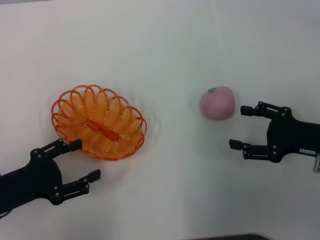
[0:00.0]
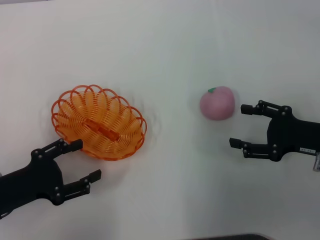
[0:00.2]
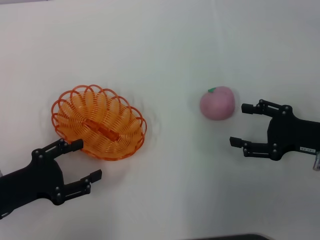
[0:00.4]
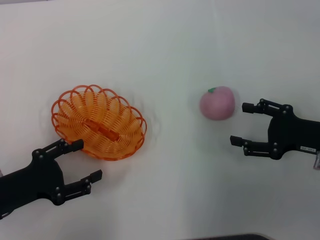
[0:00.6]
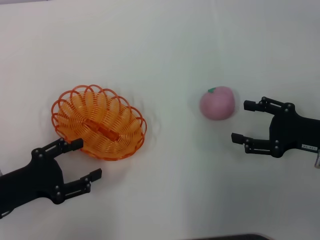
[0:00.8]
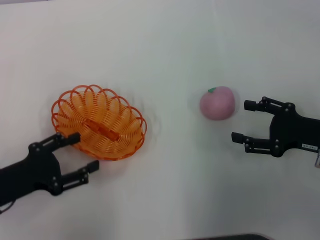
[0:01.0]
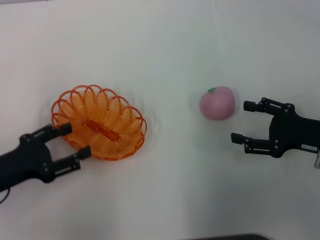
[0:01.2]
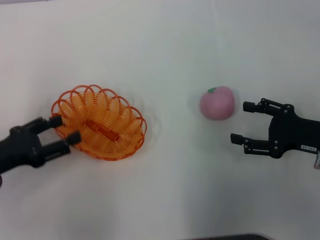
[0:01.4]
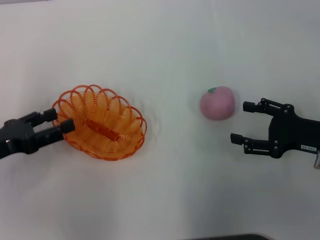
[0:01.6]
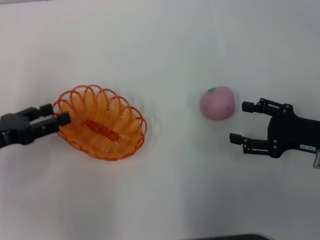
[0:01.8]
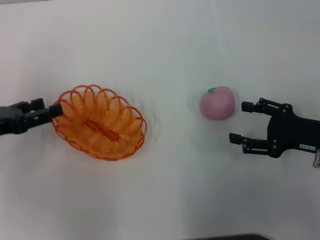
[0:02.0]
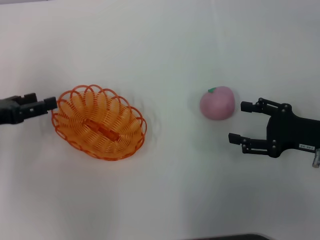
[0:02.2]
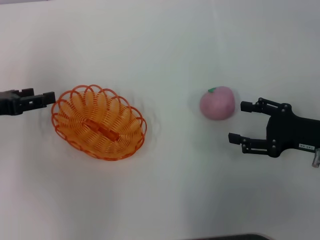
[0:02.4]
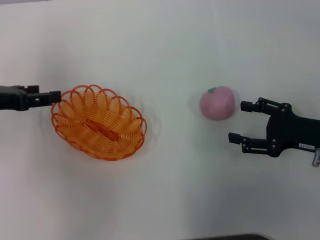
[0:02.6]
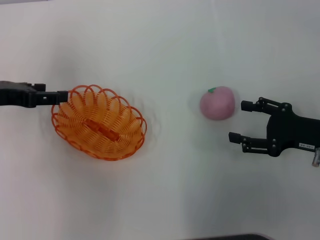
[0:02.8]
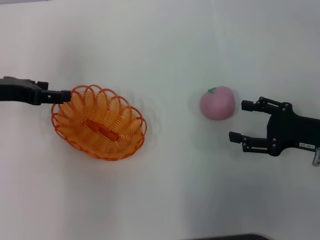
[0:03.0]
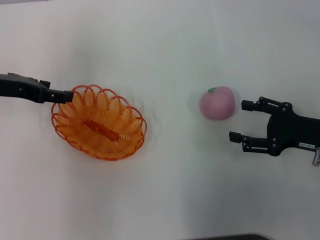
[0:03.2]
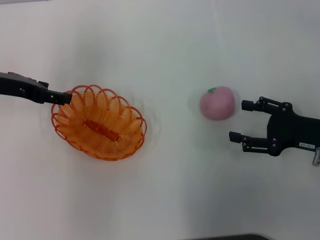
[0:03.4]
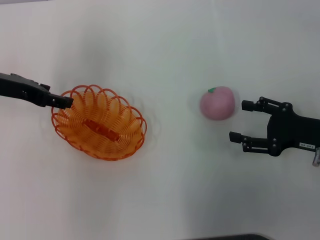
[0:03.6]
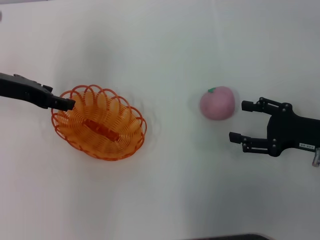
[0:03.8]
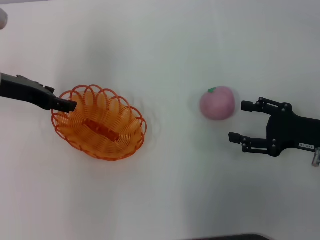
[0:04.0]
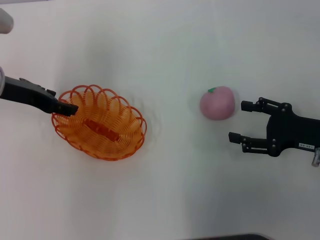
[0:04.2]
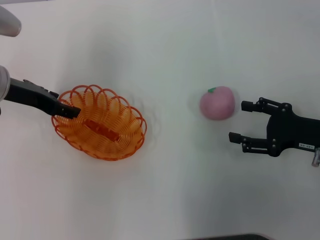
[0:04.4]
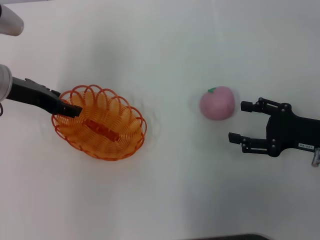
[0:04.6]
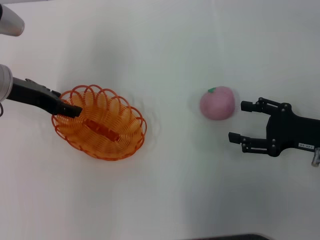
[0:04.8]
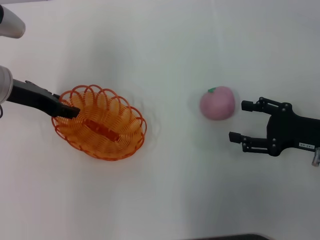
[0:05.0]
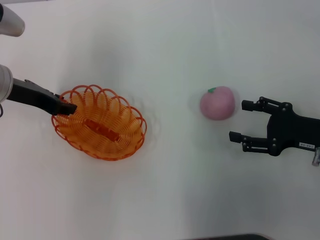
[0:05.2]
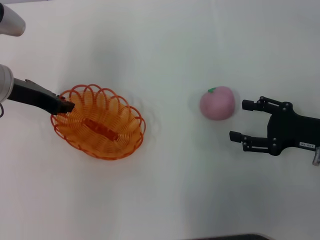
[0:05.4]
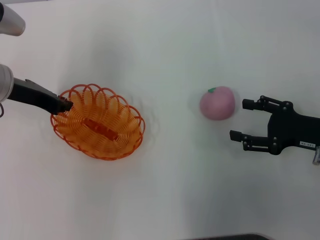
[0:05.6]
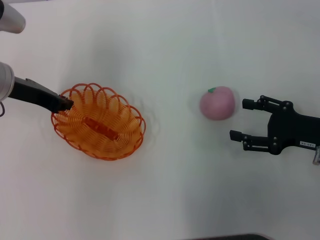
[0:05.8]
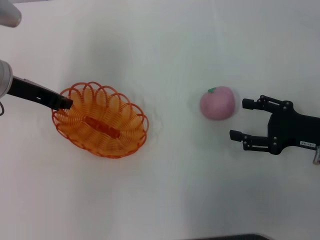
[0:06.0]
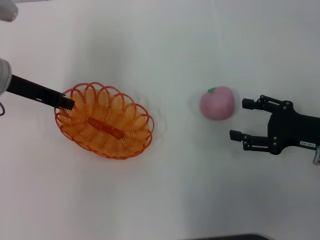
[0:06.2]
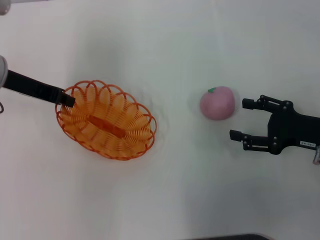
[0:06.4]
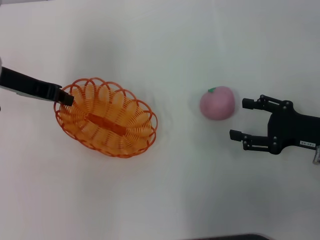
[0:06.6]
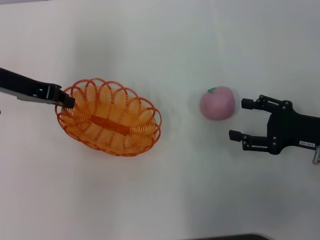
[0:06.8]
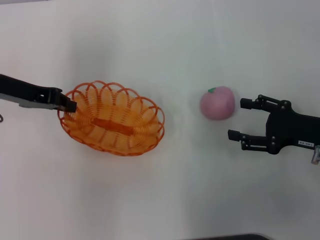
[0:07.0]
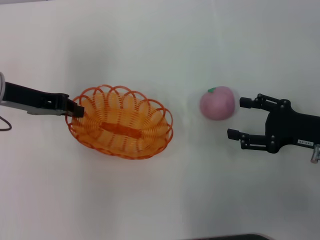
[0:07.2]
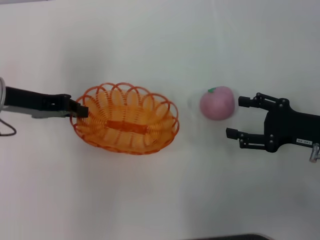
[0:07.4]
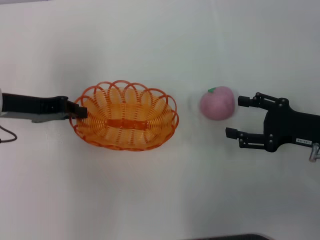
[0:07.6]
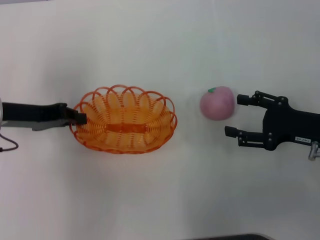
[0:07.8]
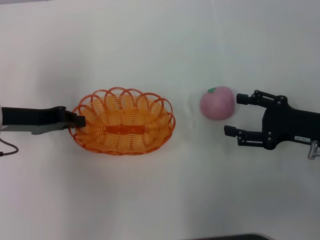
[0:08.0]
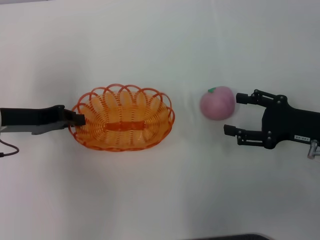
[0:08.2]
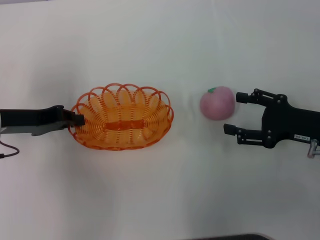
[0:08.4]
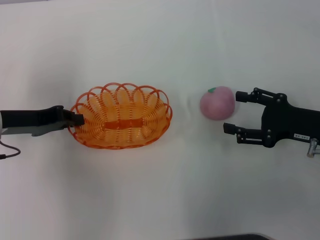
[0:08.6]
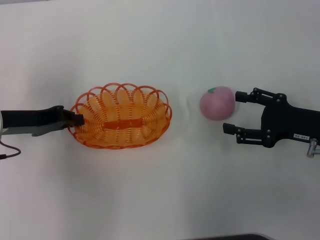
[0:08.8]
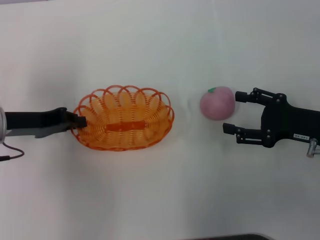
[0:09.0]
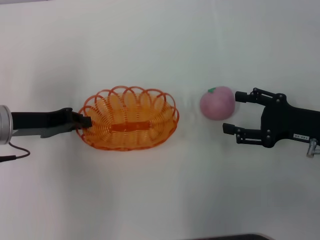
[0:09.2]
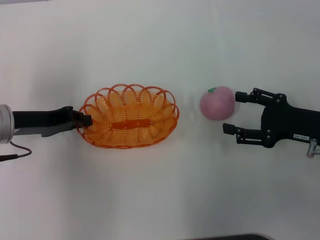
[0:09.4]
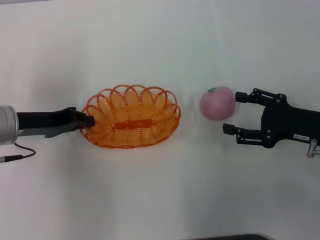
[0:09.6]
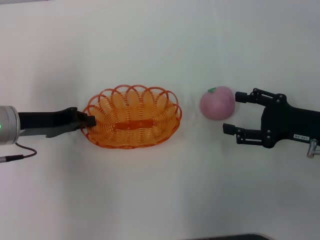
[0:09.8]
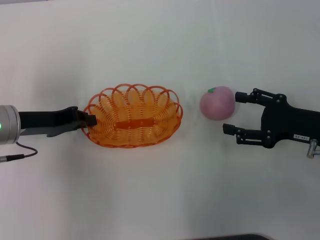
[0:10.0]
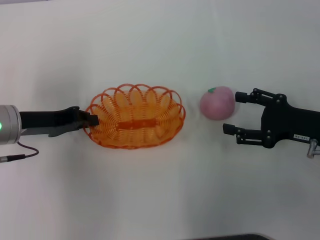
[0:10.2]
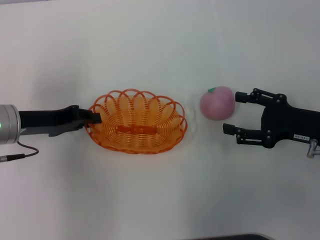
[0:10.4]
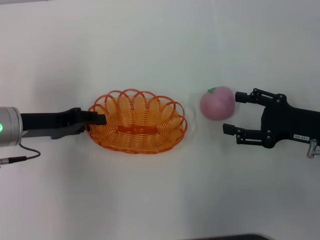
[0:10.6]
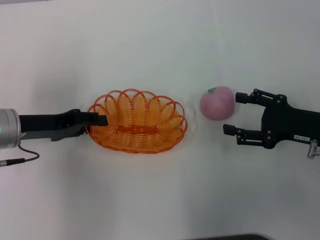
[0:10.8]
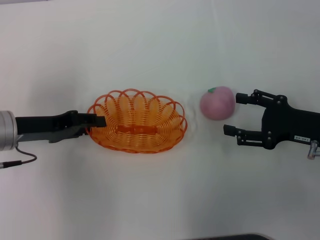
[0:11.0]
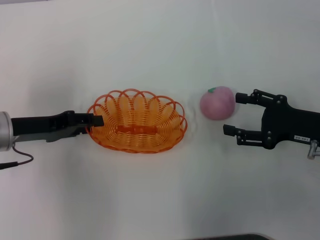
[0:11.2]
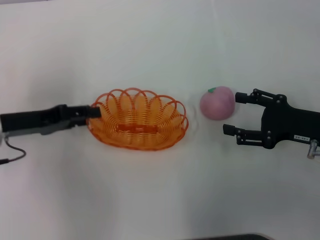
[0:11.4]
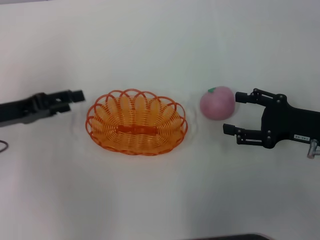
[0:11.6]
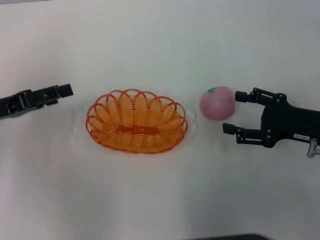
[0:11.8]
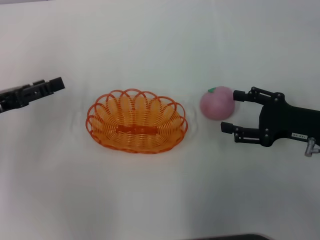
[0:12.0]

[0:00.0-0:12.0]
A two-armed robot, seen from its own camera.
Step, 0:00.0 to 0:07.0: Pick up the basket with the left gripper.
0:00.0 to 0:01.6: The left gripper ends up about 5 cm from where it was.
0:01.6 to 0:03.0: The left gripper is displaced forward and upward by roughly 10 cm.
0:03.0 to 0:04.4: The grippers stay close to where they were, moving slightly.
0:04.4 to 0:06.0: The left gripper closes its fingers.
0:07.6 to 0:10.4: The grippers move only a little.
0:10.4 to 0:12.0: The left gripper is displaced to the left by about 5 cm, and opens.

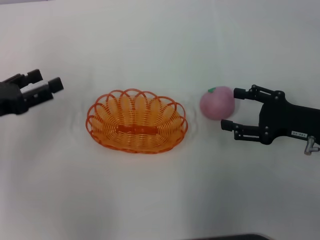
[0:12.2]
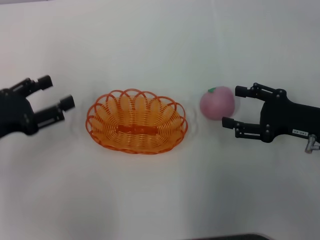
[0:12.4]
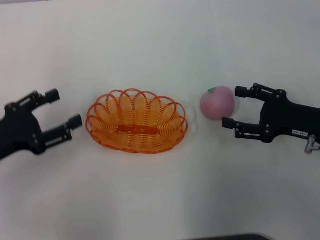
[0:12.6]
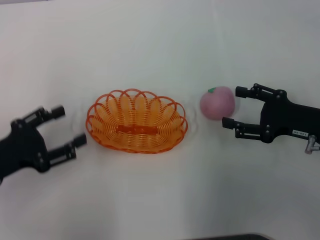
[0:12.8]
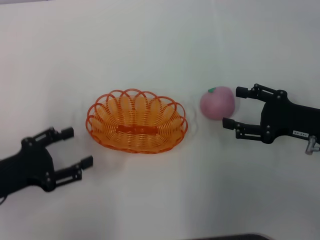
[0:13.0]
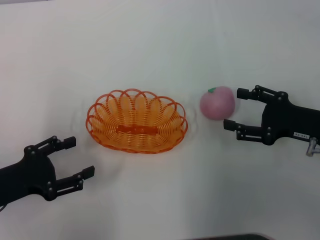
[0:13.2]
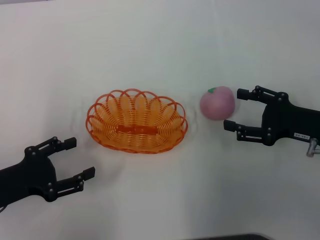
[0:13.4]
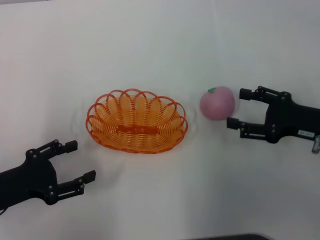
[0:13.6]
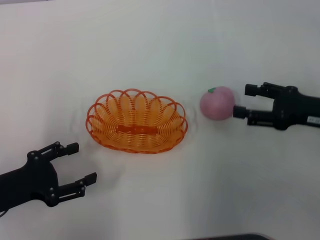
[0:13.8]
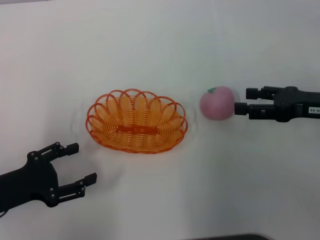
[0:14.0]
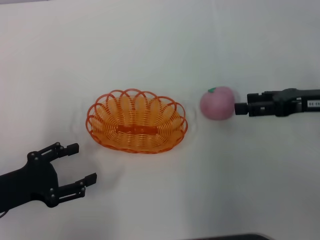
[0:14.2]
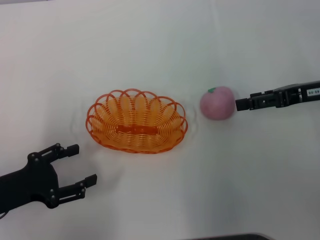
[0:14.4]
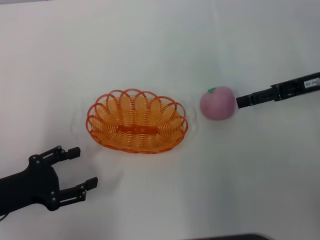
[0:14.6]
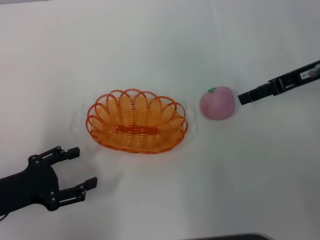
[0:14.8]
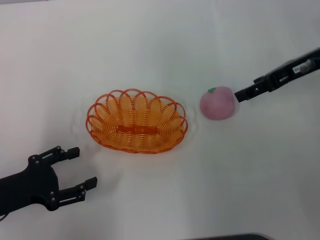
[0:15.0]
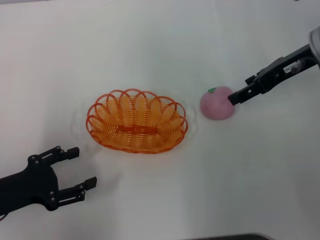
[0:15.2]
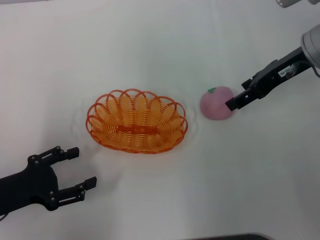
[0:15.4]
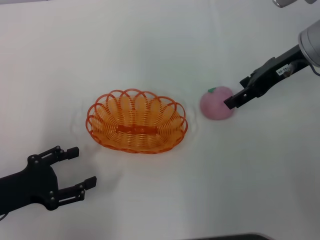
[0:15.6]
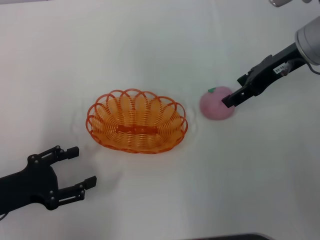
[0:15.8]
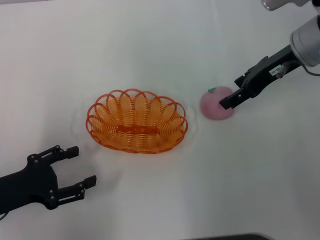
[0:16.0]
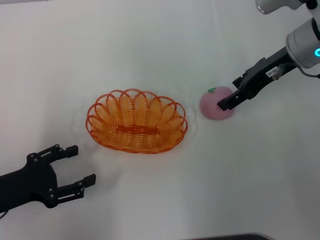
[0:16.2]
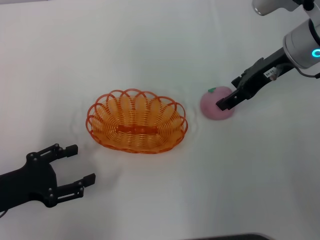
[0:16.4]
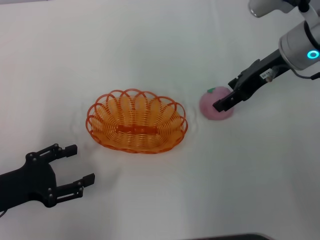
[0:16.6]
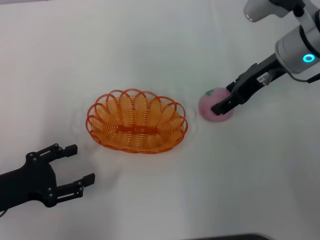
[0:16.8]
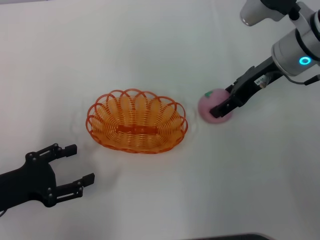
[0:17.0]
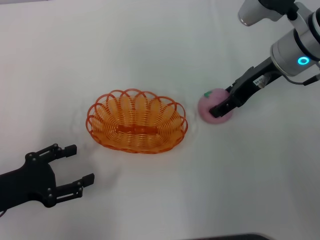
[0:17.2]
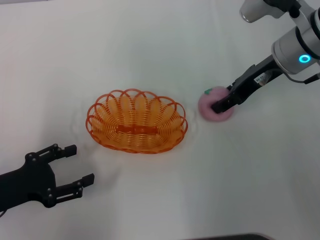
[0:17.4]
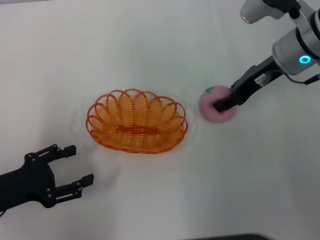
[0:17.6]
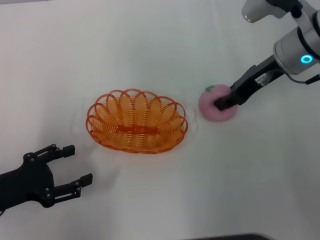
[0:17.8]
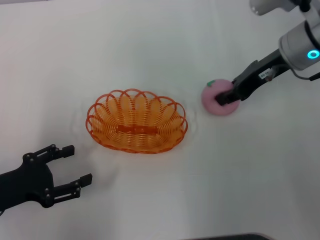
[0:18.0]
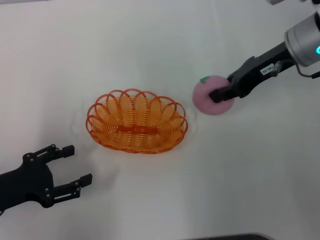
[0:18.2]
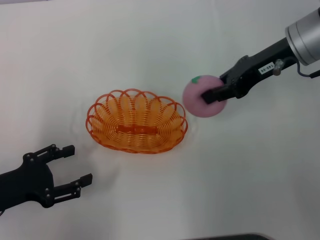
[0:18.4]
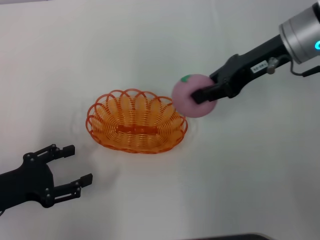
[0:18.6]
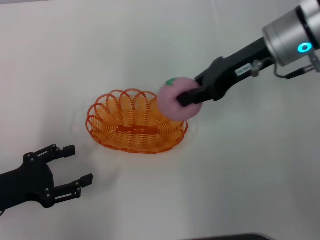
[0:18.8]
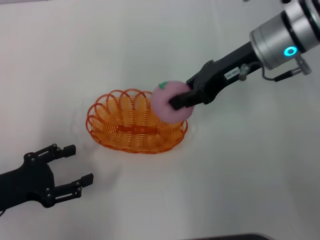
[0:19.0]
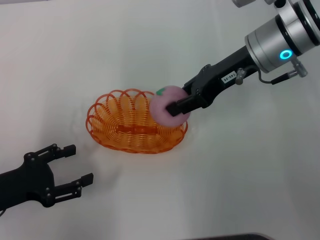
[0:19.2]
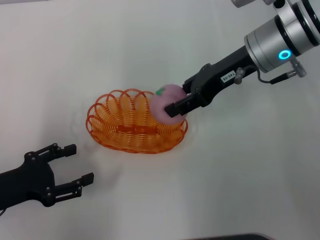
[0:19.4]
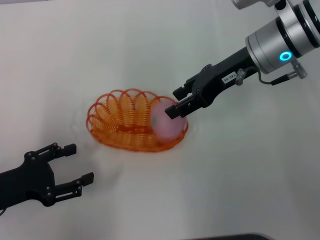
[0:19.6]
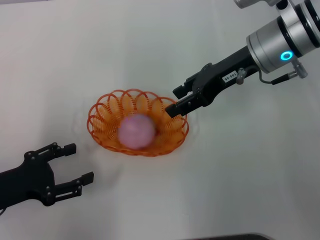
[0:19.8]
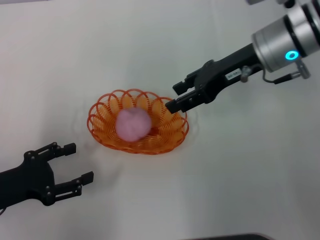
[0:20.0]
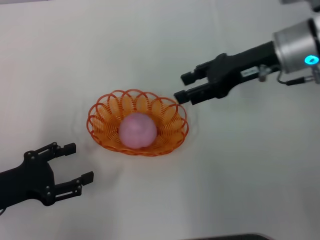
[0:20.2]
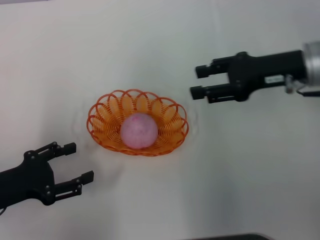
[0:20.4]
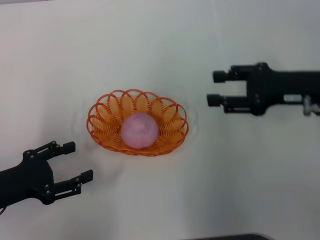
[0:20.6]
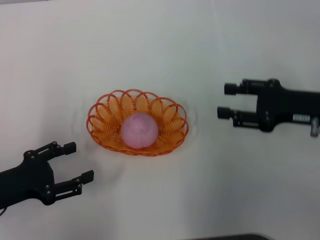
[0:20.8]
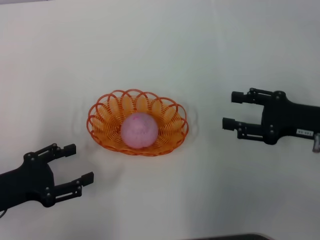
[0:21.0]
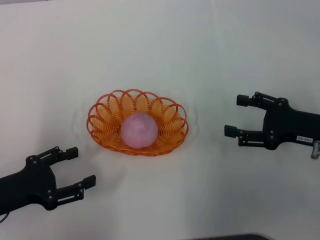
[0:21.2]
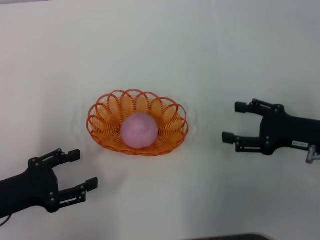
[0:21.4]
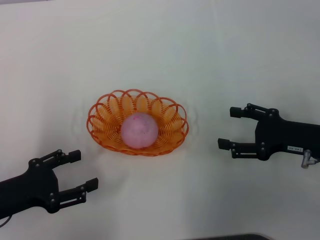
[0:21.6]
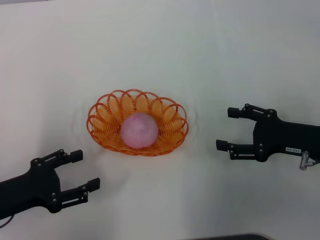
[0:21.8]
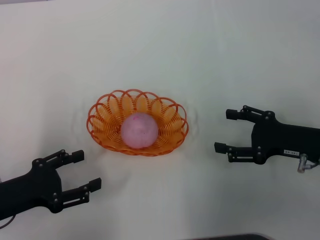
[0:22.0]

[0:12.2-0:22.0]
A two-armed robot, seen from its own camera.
Step, 0:13.2 to 0:18.6: Pick up the peach with the right gripper.
Step, 0:18.8 to 0:20.4: Place the peach into the basket with the right gripper.
0:12.2 to 0:13.6: The left gripper shifts about 10 cm backward and downward.
0:13.6 to 0:15.0: The right gripper goes about 15 cm forward and upward.
0:15.0 to 0:16.4: The right gripper ends up some 5 cm from where it was.
0:16.4 to 0:17.8: The right gripper closes up.
0:19.2 to 0:20.6: The right gripper shifts roughly 10 cm to the right and backward, and opens up.
0:20.6 to 0:22.0: The right gripper heads downward and backward, covering some 10 cm, and opens its fingers.
